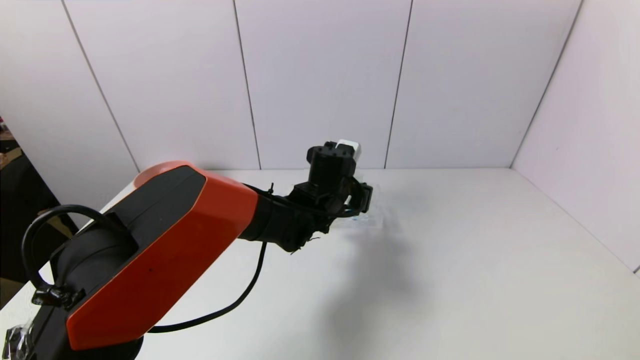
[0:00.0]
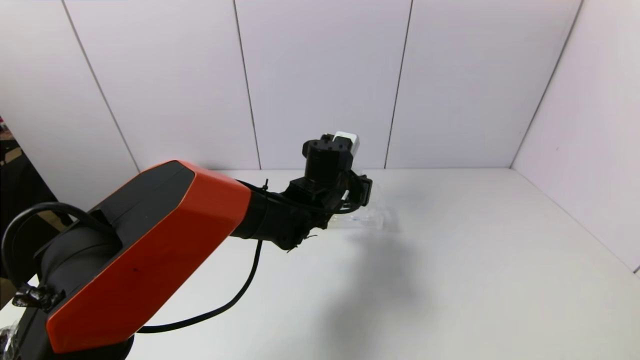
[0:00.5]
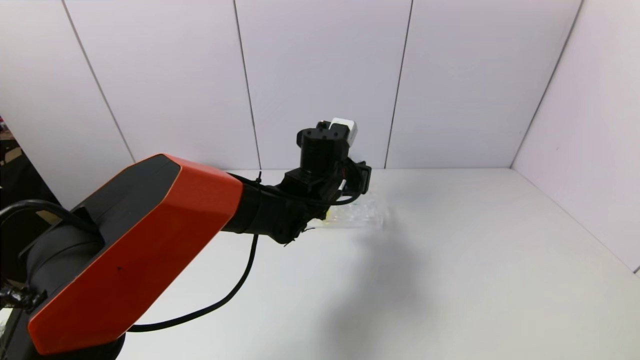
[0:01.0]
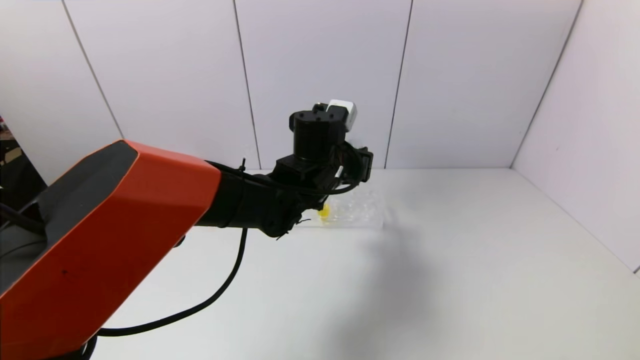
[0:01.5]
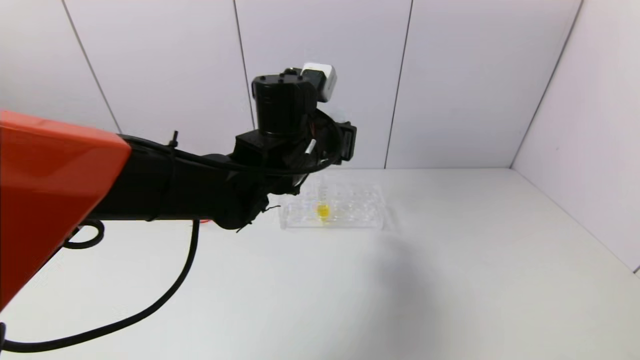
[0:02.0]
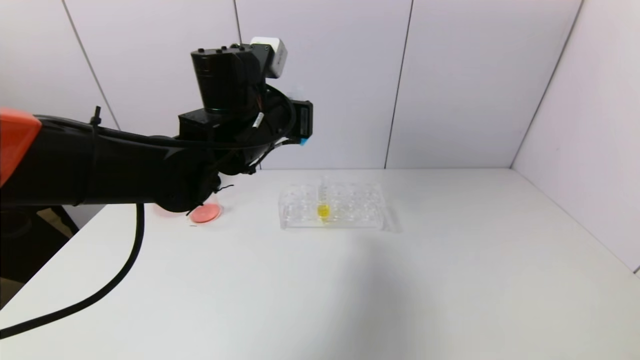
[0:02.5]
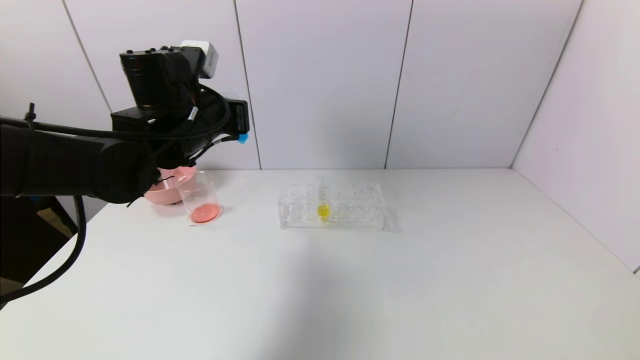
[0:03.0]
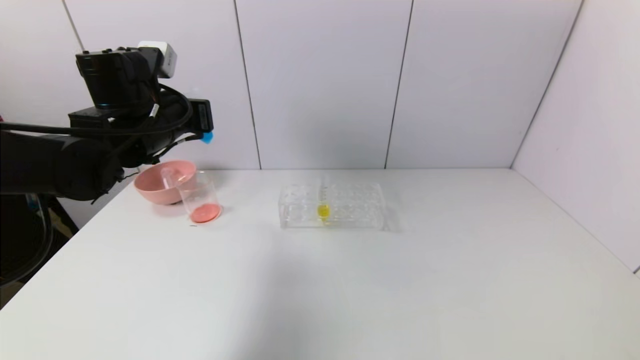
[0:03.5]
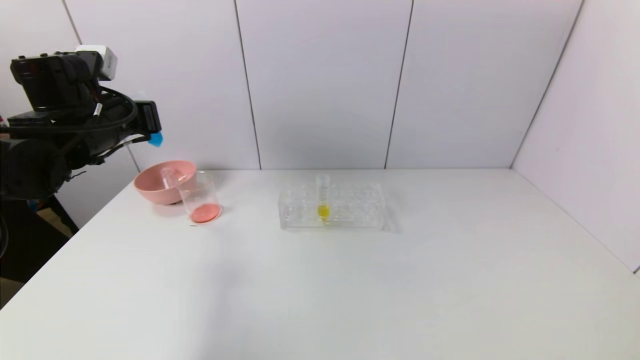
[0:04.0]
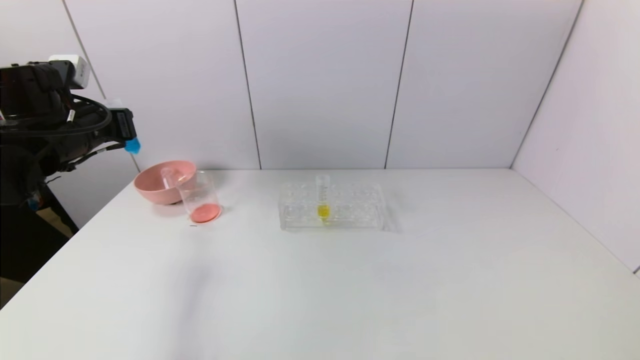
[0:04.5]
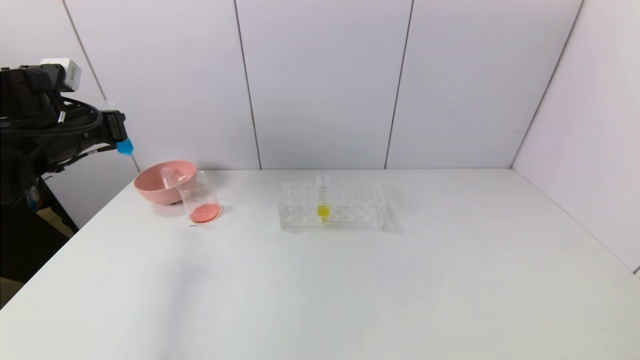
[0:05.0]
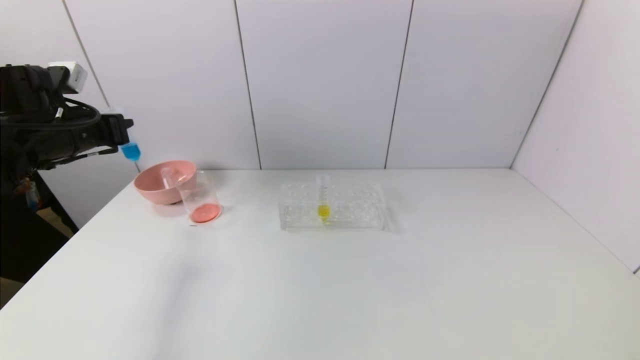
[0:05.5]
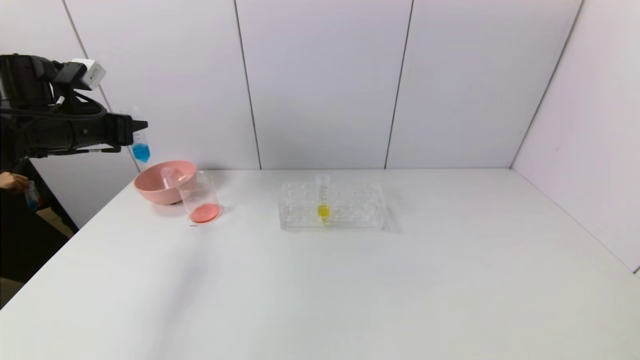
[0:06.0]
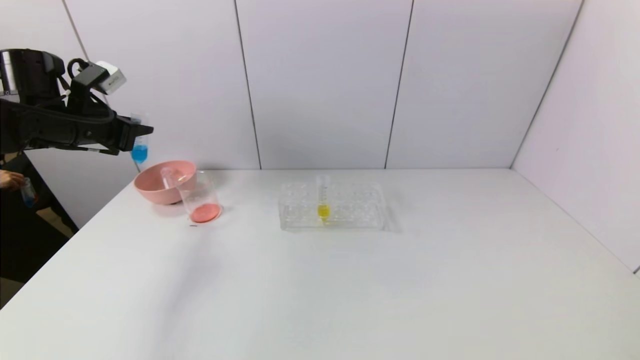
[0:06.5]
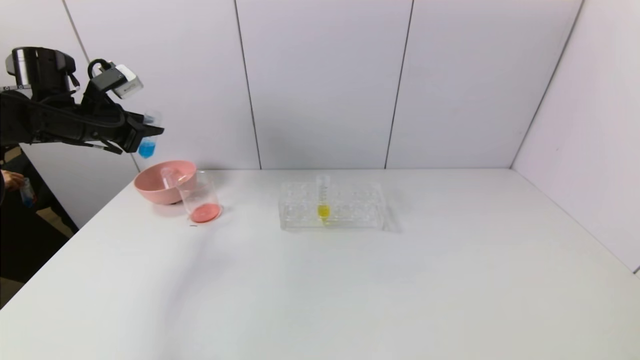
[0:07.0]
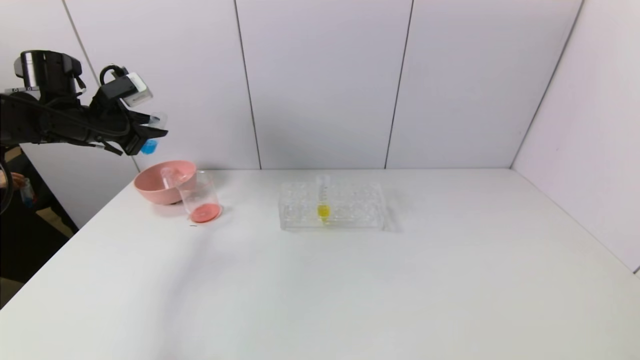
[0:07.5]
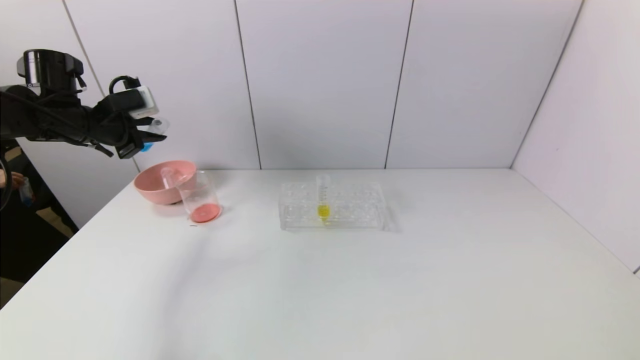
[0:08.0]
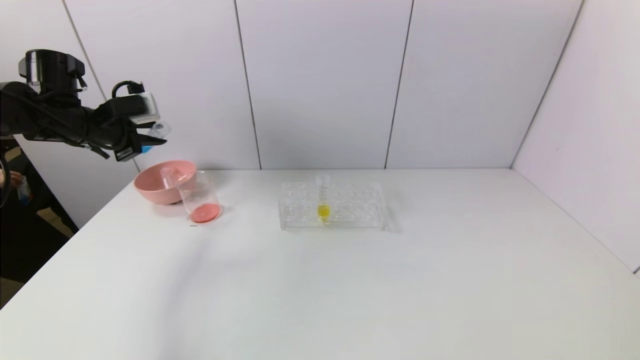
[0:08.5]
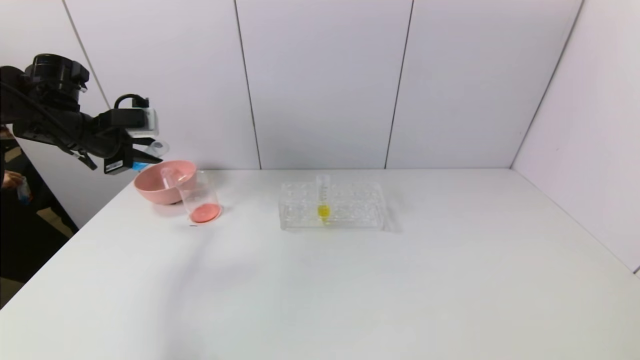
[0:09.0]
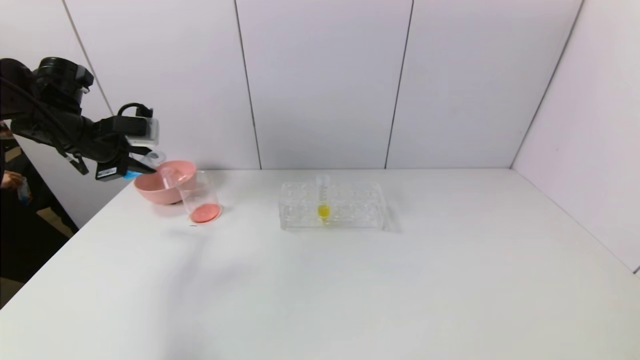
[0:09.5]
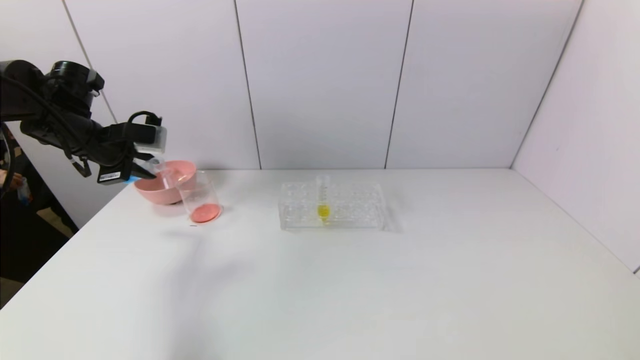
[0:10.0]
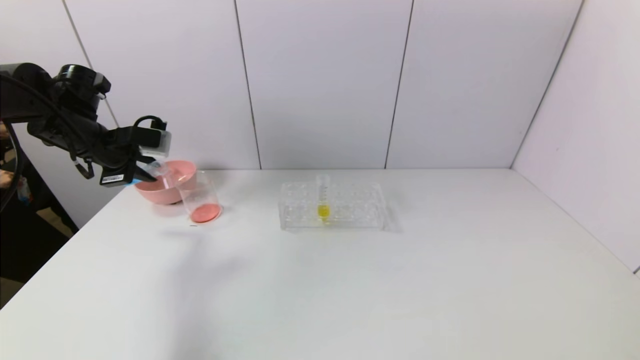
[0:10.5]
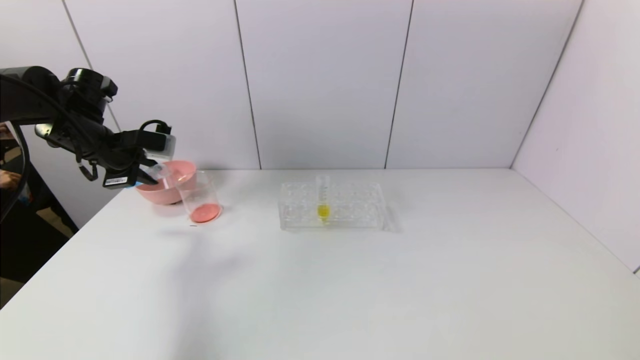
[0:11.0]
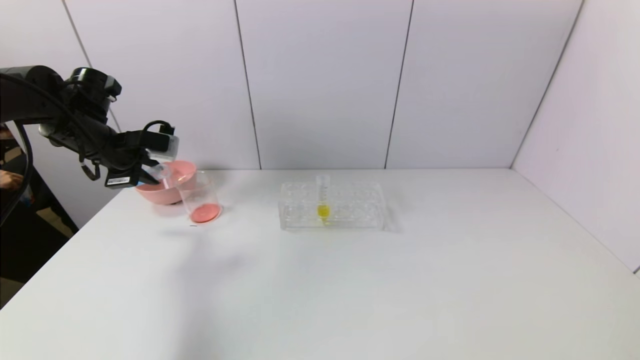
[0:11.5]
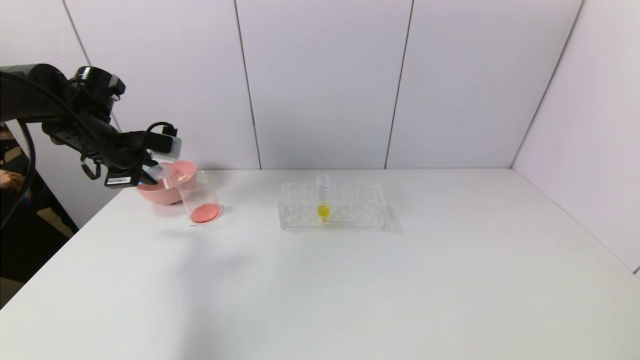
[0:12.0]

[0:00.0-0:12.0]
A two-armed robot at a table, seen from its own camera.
Task of the whole recording: pick up the test tube with red pigment and the test tube with blue pigment by grippers and pour them into the container.
0:00.0 to 0:02.0: The left gripper heads upward, backward and to the left, covering approximately 15 cm.
0:02.0 to 0:04.0: The left gripper heads to the left, covering roughly 25 cm.
0:04.0 to 0:06.0: The left gripper shifts about 5 cm to the left.
0:10.0 to 0:12.0: The grippers stay close to where they were, moving slightly.

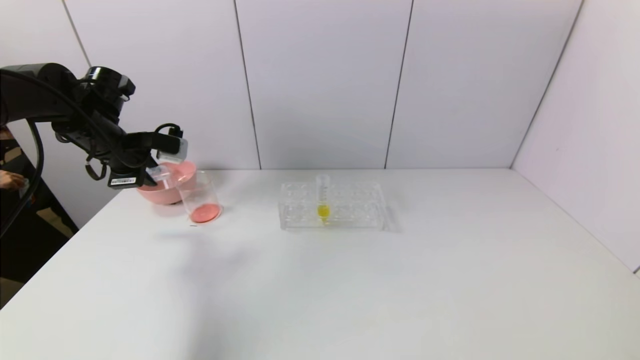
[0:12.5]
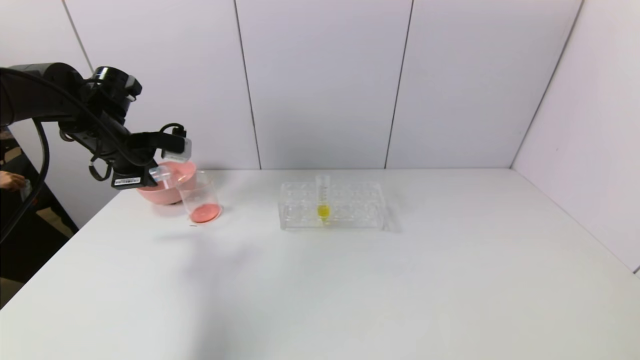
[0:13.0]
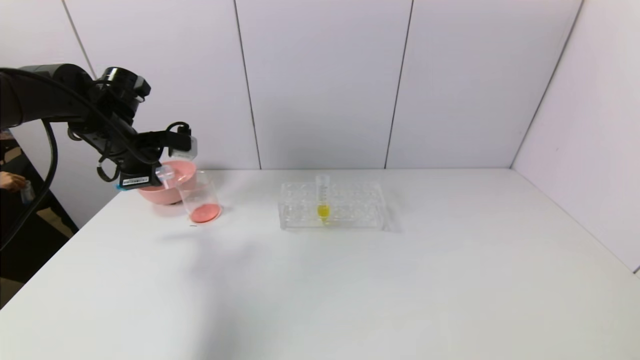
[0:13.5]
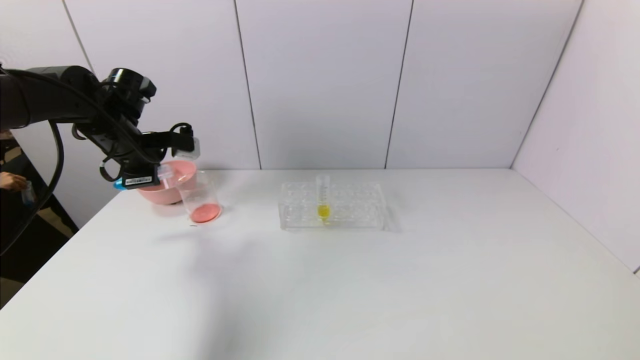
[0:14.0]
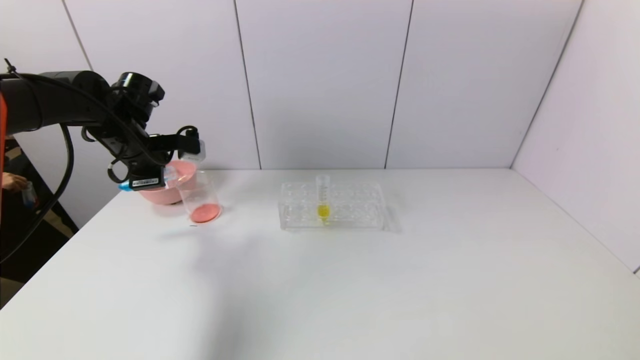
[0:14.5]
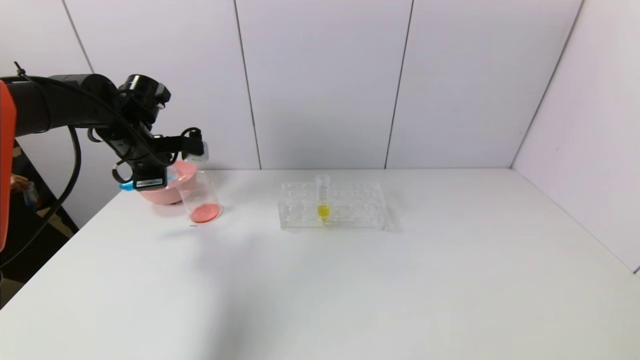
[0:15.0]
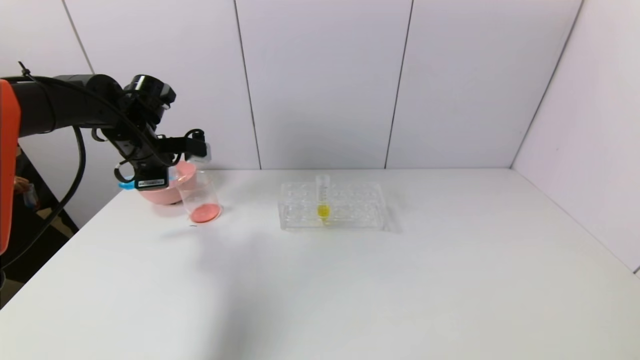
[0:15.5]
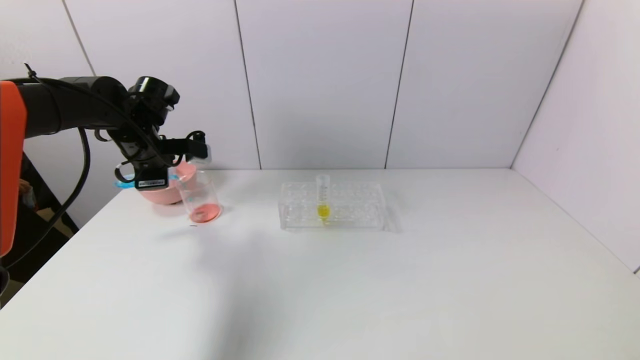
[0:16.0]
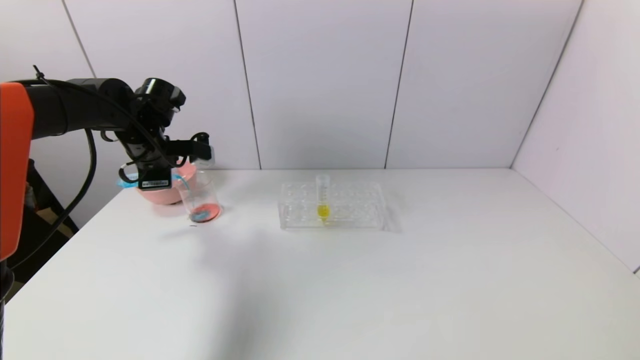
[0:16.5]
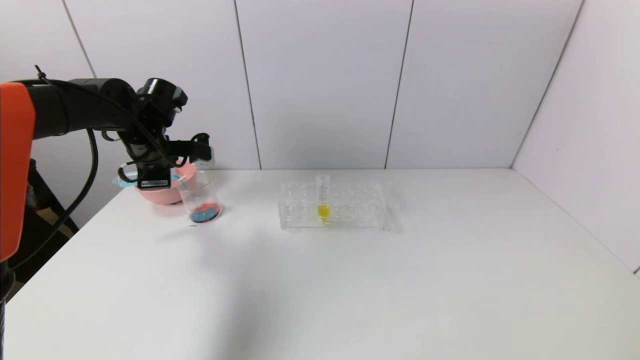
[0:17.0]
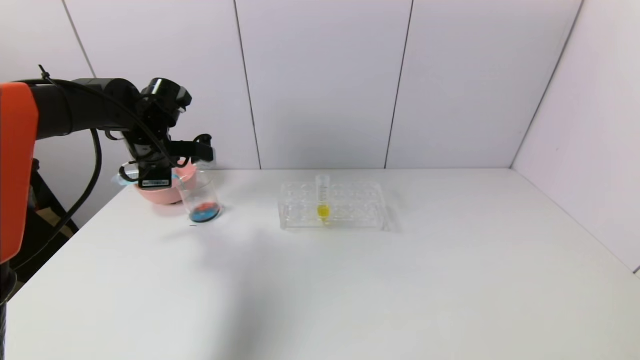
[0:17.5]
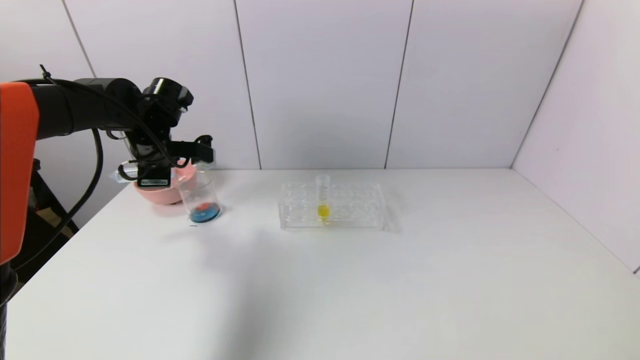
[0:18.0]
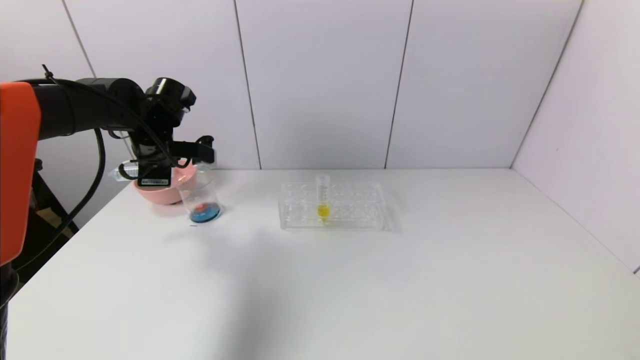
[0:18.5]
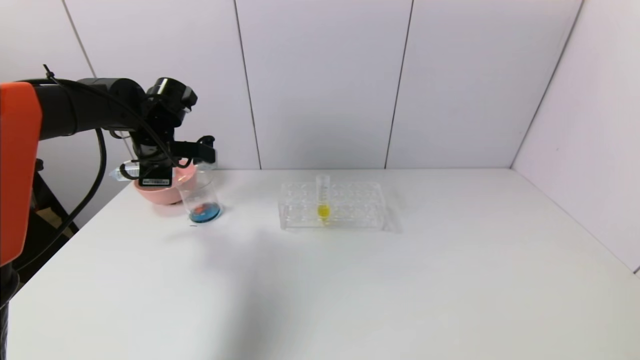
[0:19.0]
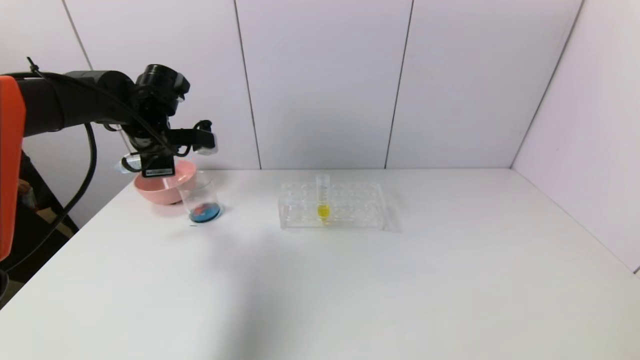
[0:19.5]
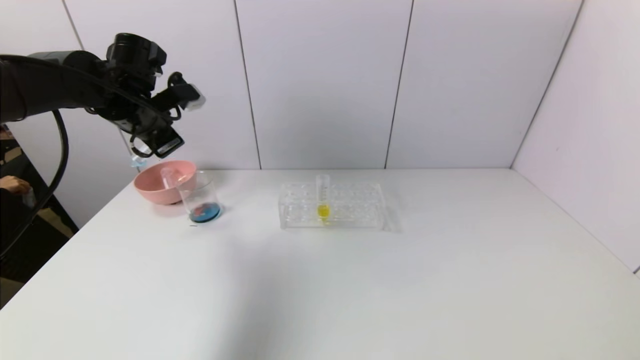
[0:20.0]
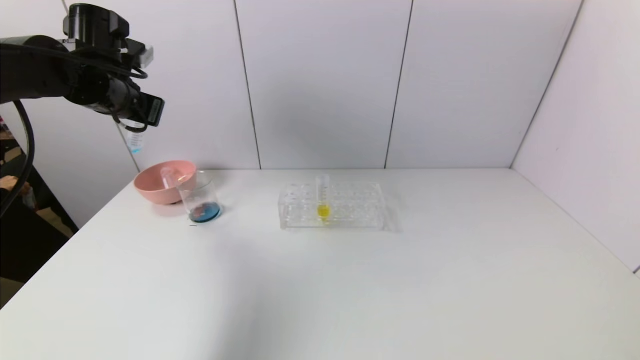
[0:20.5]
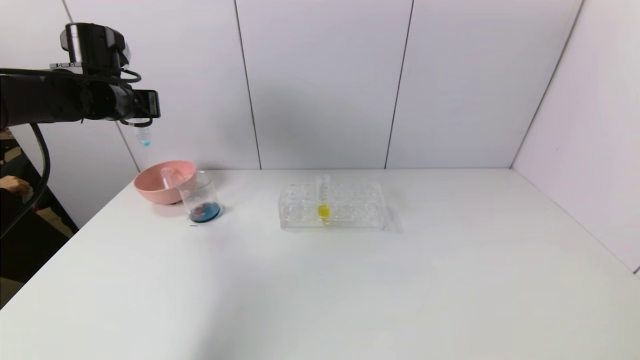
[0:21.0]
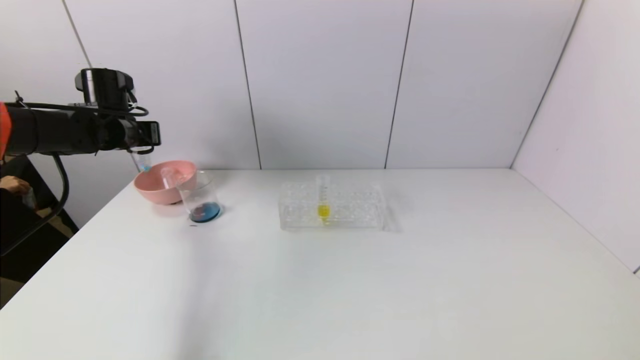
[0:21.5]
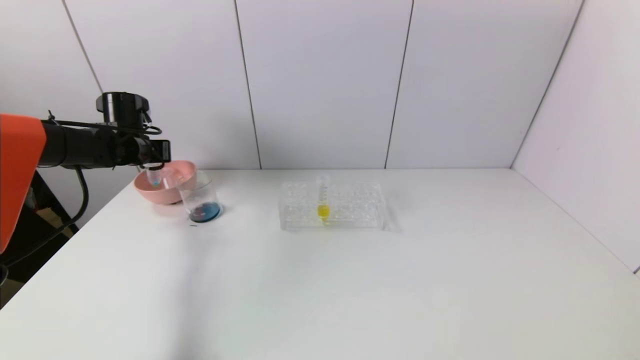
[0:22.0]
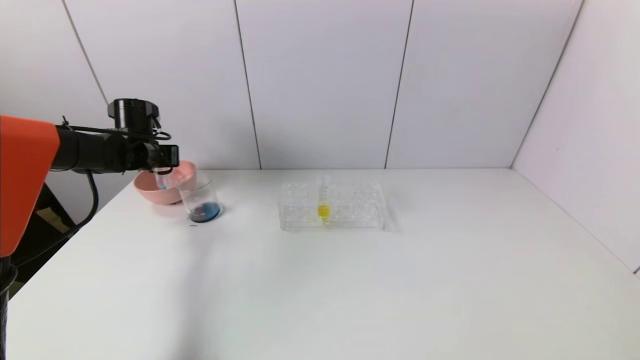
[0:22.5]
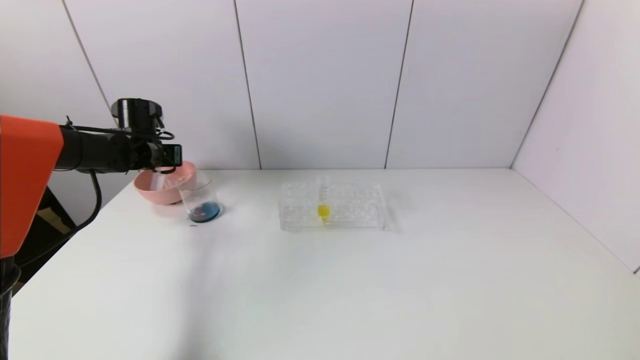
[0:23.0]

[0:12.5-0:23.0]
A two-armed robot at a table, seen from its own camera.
Task of the whole recording: pick up the test tube with red pigment and the test tube with blue pigment by grippers and pour them into the container.
Step, 0:12.5 to 0:20.5: Pour the blue reagent into the graduated cylinder with the left gripper.
0:12.5 to 0:16.5: The grippers move only a little.
0:16.5 to 0:19.0: The grippers move only a little.
0:19.0 to 0:21.0: The left gripper shifts some 10 cm upward and to the left.
0:21.0 to 0:23.0: The left gripper shifts some 10 cm downward, and opens up.
